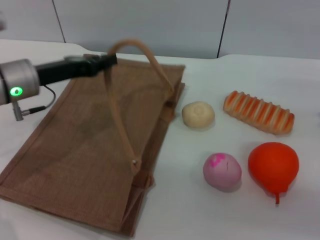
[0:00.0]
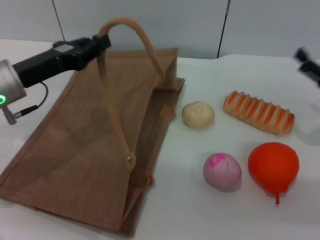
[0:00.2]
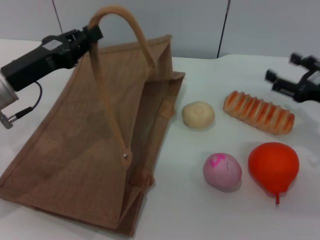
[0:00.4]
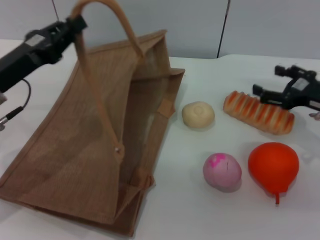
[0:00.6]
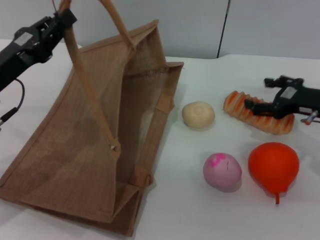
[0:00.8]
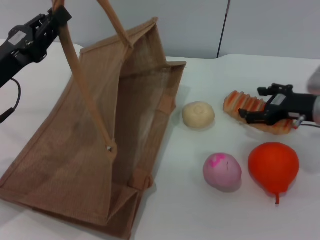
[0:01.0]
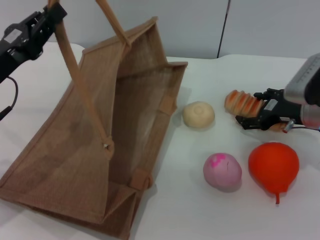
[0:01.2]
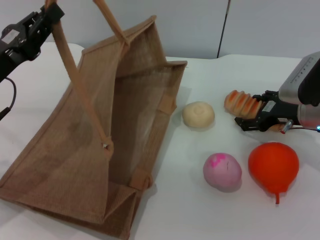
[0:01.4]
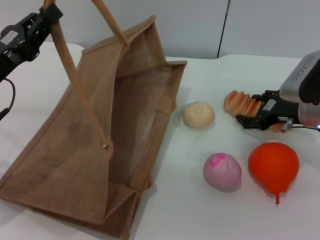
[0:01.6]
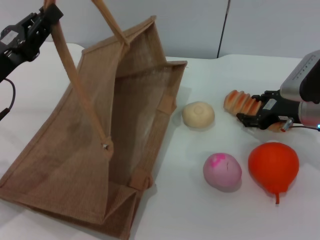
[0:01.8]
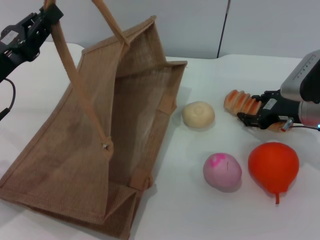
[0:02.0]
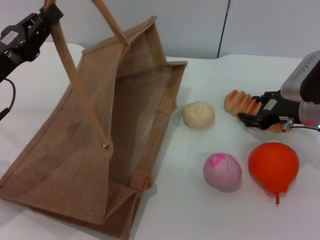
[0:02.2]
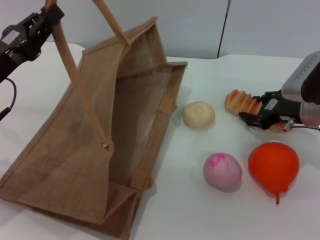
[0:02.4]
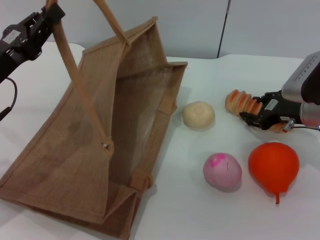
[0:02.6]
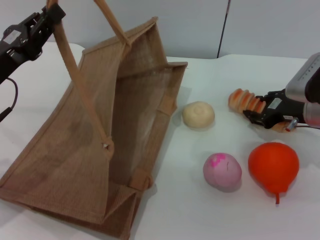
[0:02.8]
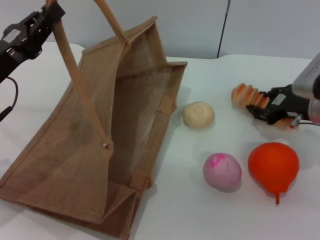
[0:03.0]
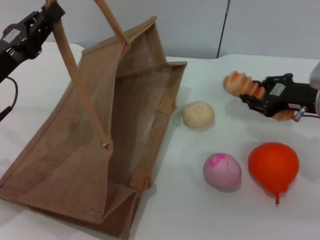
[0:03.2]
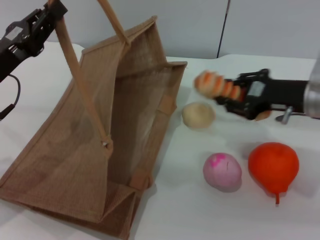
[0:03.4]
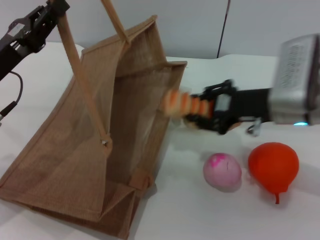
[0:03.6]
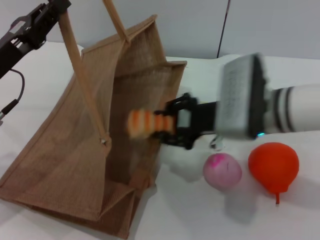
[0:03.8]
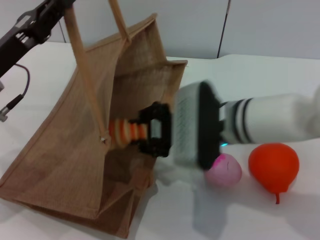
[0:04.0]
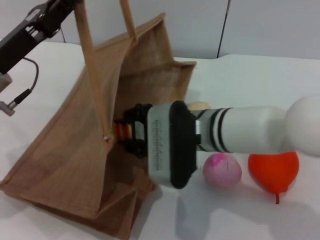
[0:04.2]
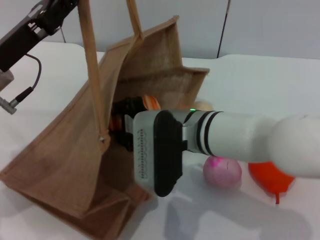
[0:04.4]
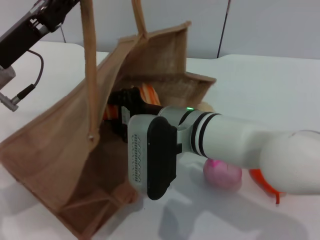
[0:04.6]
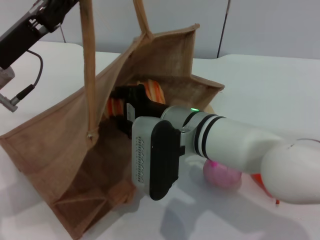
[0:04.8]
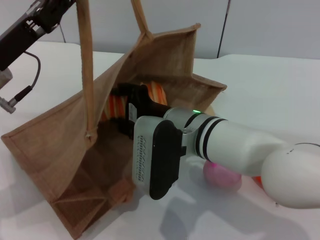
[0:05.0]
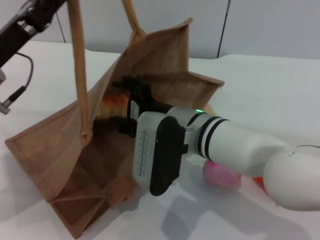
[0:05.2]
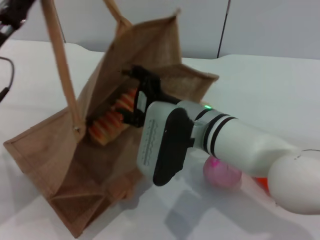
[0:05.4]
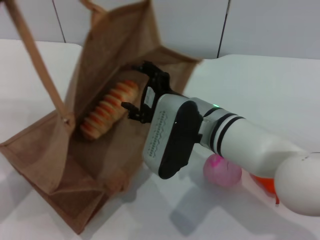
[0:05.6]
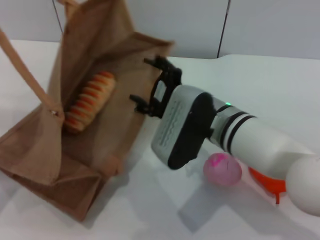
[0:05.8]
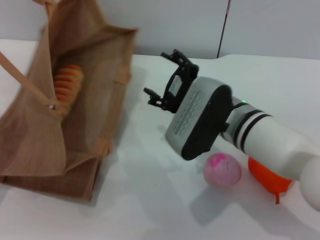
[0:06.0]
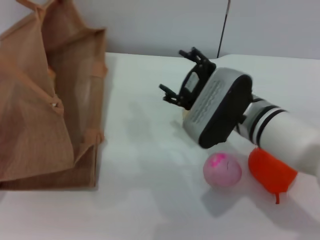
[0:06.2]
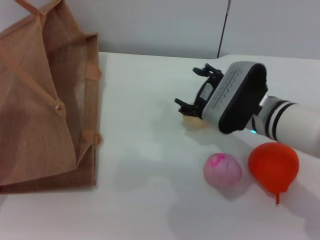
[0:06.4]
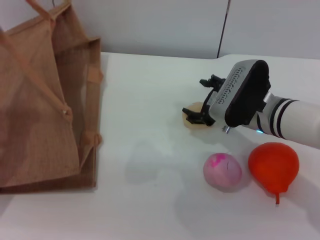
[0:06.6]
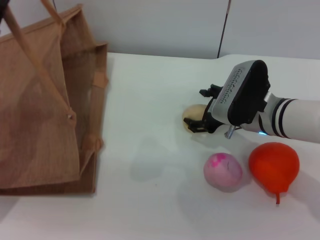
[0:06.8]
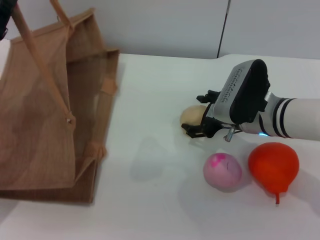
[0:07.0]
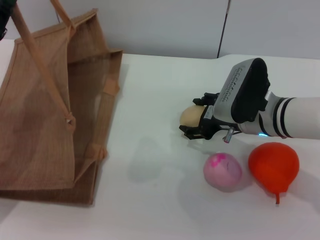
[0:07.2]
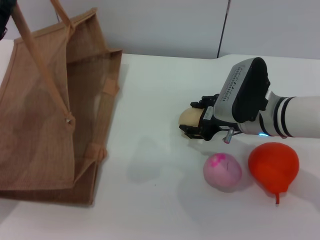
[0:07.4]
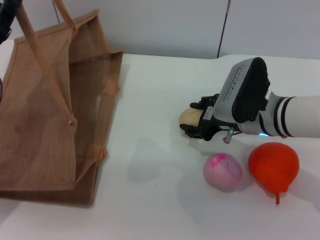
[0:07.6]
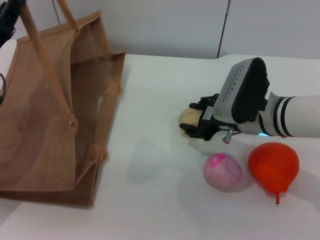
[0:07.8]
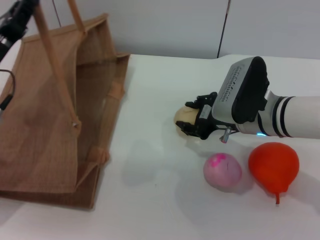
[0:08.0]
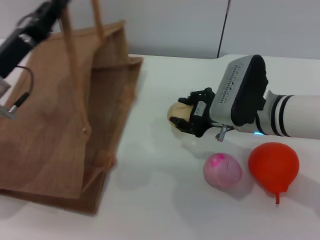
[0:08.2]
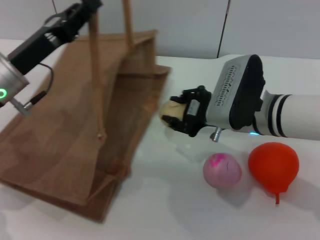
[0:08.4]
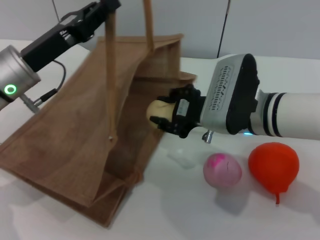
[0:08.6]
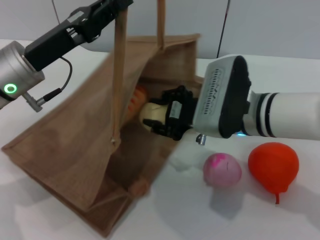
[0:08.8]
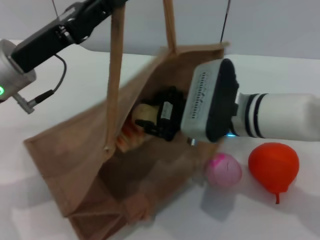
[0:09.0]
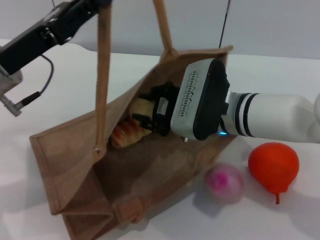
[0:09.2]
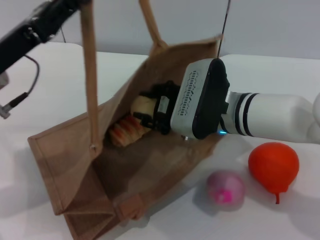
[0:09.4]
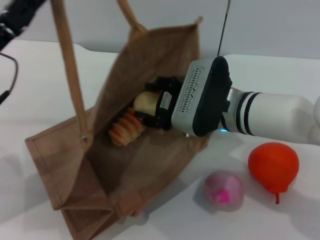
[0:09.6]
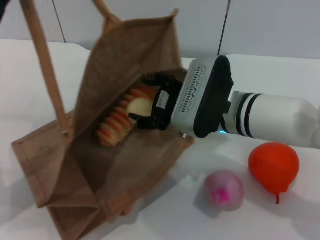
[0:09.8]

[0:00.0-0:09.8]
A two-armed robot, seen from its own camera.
Task of the whole recording: pick up the bread and egg yolk pastry from the table and place it in the brown handbag.
Step, 0:00.2 to 0:03.2: Pick up the bread with the right gripper.
Step, 0:03.4 to 0:05.8: Place the bread into the woven bag with the right gripper.
Step, 0:06.0 to 0:08.2: Pick up the egg yolk pastry with the right gripper.
0:00.0 to 0:01.4: The left gripper goes some 5 cm backward. The right gripper moves to the left and forward, about 15 cm.
0:01.4 to 0:02.8: The right gripper closes.
0:02.8 to 0:04.2: The right gripper goes roughly 20 cm to the left.
0:04.2 to 0:05.6: The left gripper changes place by some 5 cm. Meanwhile the right gripper opens.
0:05.6 to 0:07.0: The right gripper is displaced to the right and forward by roughly 10 cm.
0:07.0 to 0:08.4: The right gripper closes its fingers, while the left gripper goes approximately 5 cm to the right.
0:08.4 to 0:09.8: The left gripper changes place by some 5 cm.

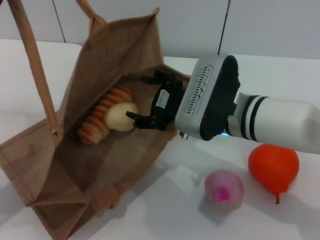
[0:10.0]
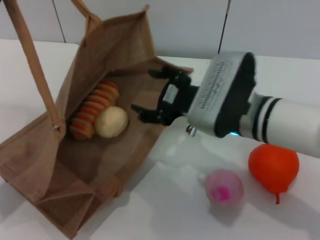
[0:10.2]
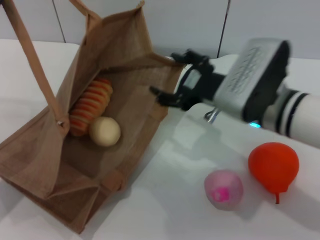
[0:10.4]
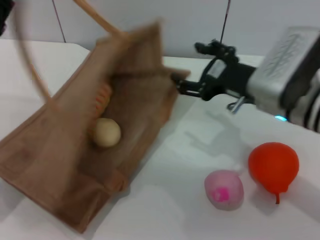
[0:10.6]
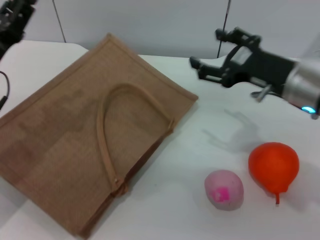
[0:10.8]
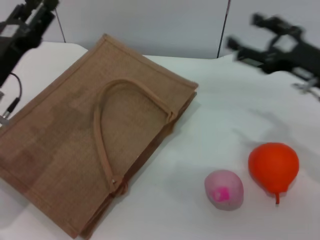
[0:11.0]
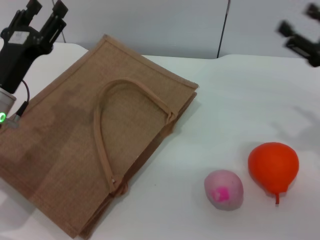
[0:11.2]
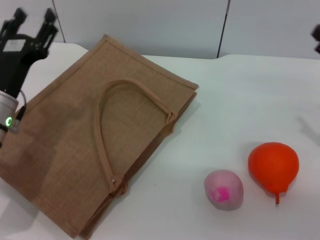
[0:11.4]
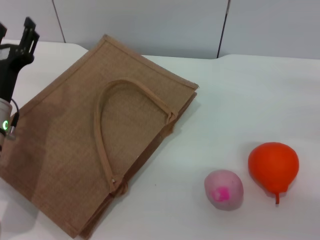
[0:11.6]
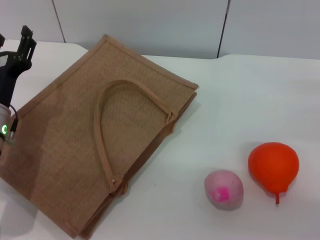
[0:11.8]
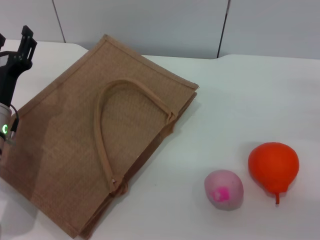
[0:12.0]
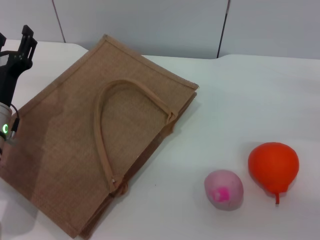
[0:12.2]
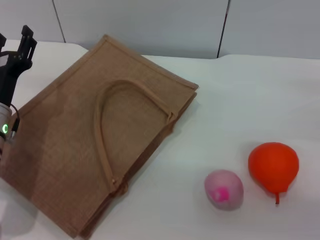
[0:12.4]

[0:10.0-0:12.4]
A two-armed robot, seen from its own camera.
Task of the whole recording: pick up the bread and egg yolk pastry from the table and place it in the brown handbag.
Step, 0:10.6 to 0:11.6: Lower the woven bag with the left gripper to close it.
0:10.0 to 0:11.2: The right gripper moves to the right, some 20 cm, while the left gripper shifts by about 5 cm, and opens.
0:11.2 to 0:12.4: The right gripper goes about 5 cm to the right.
